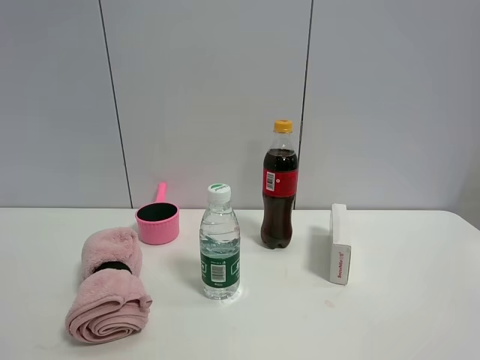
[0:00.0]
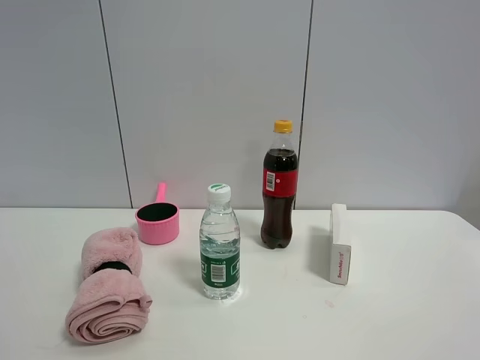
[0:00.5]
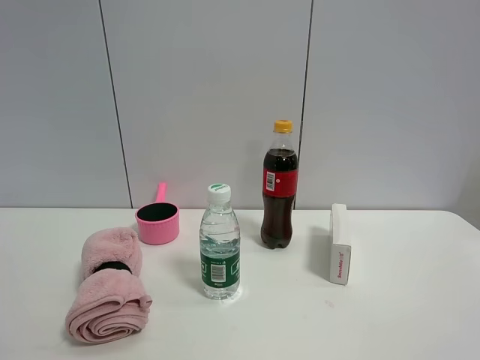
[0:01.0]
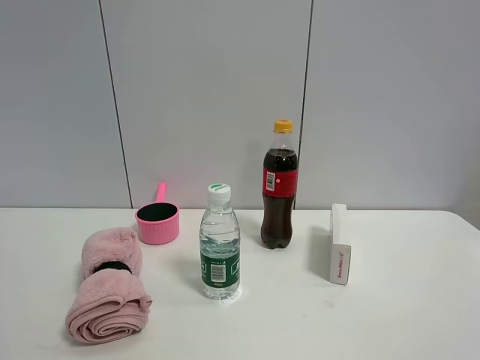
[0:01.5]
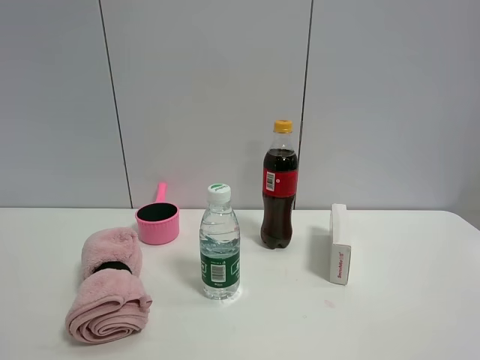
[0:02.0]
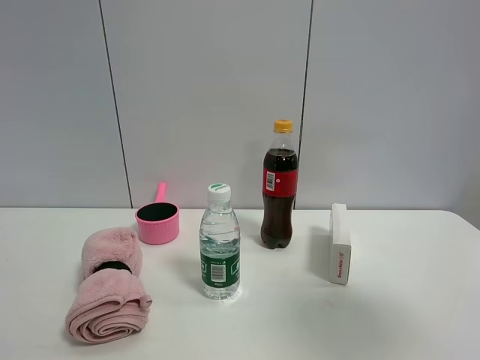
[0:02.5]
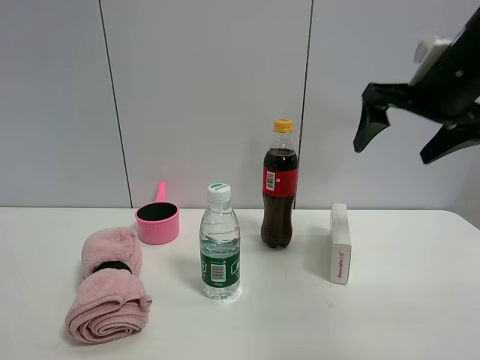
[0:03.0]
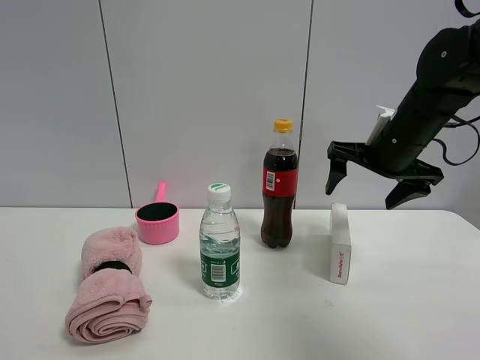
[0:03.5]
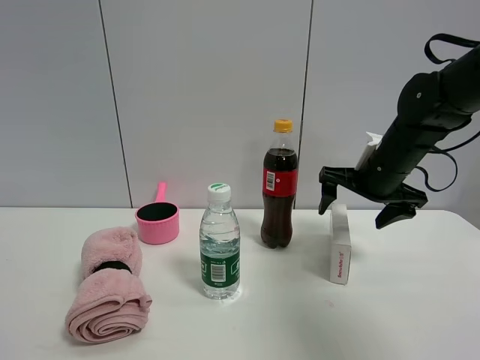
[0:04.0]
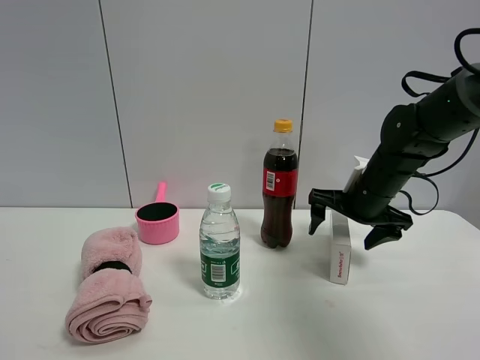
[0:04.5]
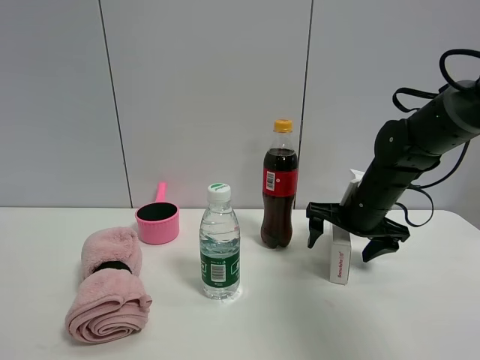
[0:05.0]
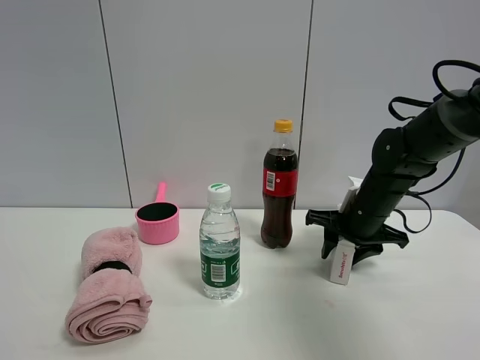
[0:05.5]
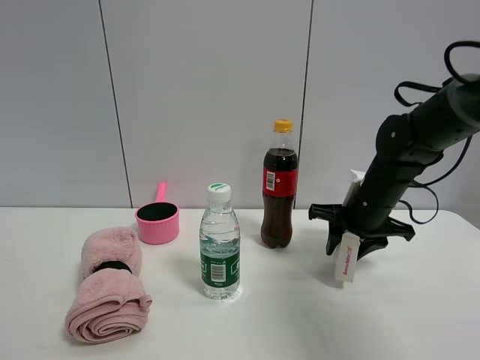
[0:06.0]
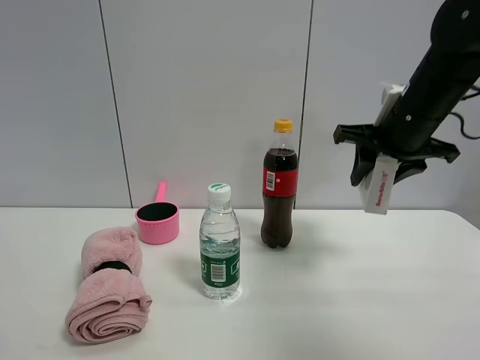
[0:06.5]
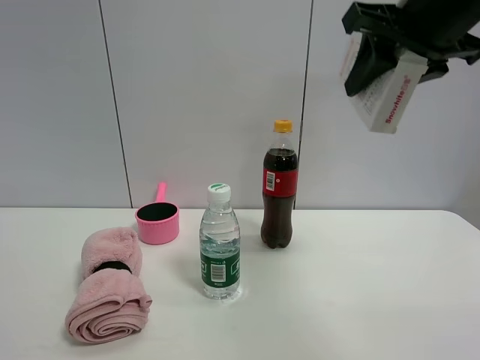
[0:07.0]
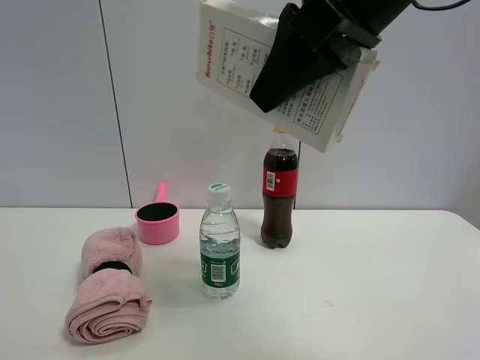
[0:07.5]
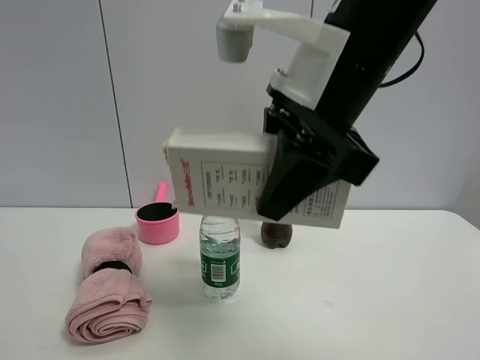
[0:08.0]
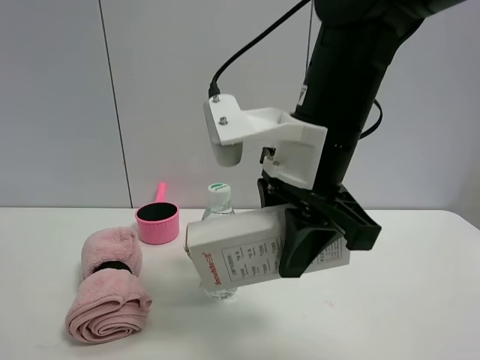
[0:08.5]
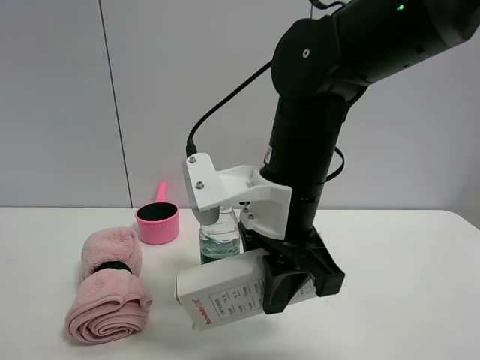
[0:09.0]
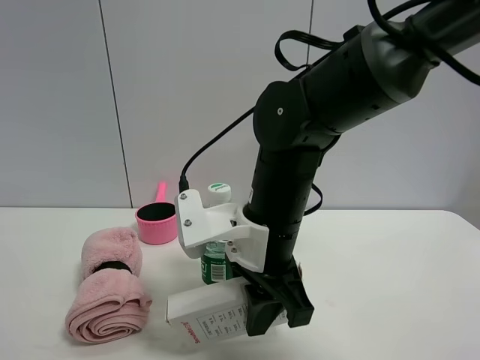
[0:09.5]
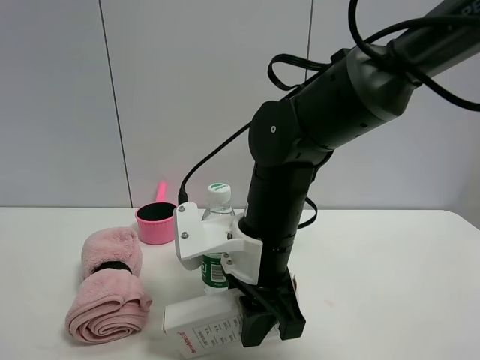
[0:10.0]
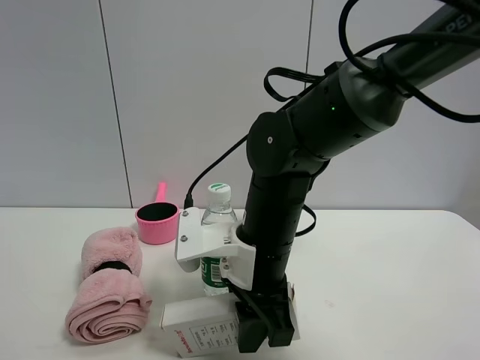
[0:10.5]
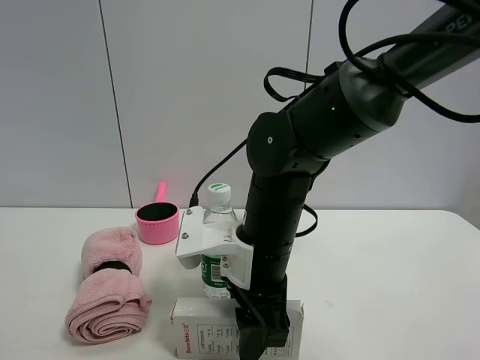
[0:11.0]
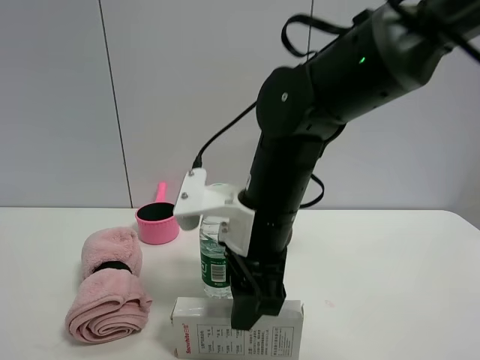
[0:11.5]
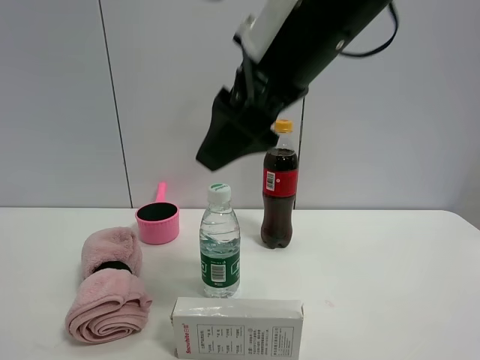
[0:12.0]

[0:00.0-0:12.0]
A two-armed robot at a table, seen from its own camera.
Task of the whole recording: the gripper move the object.
Step, 0:00.0 to 0:05.5: Grasp the USB box with the right gripper.
Step, 0:06.0 to 0:11.0: Place the USB box on the table with the right gripper.
0:00.0 to 0:02.0: Both grippers stay about where they are.
0:02.0 to 0:04.0: The right gripper moves forward, roughly 40 cm.
0:04.0 to 0:06.0: The right gripper closes its fingers.
0:06.0 to 0:08.0: The right gripper travels upward, backward and to the left by about 25 cm.
0:08.0 to 0:10.0: The right gripper goes roughly 15 cm downward.
0:10.0 to 0:12.0: The right gripper heads upward, covering about 20 cm, and opens.

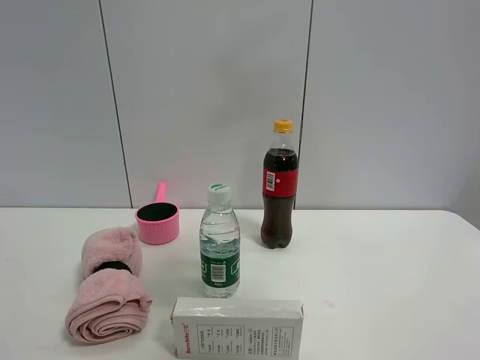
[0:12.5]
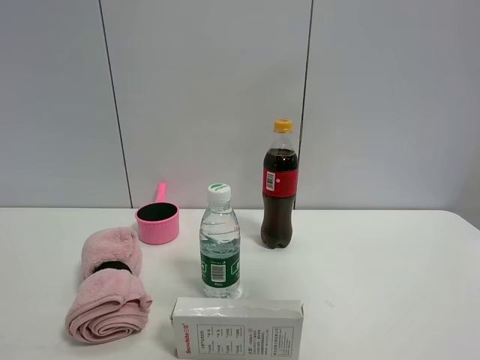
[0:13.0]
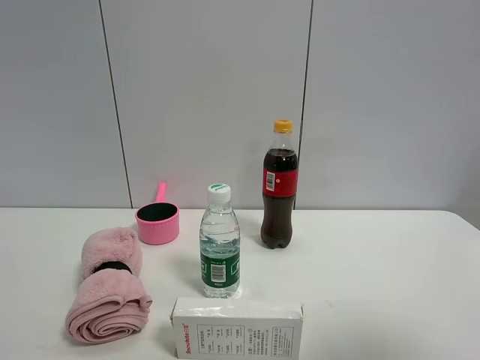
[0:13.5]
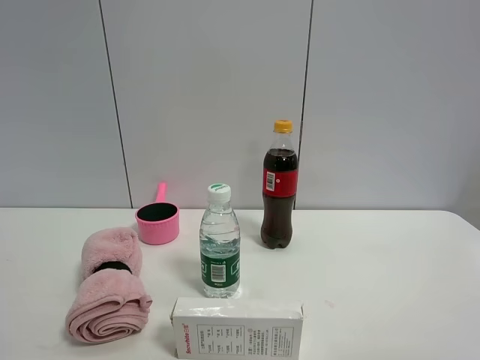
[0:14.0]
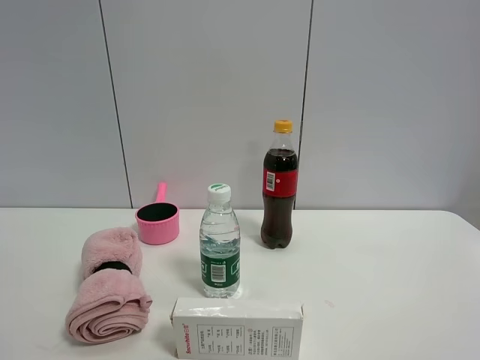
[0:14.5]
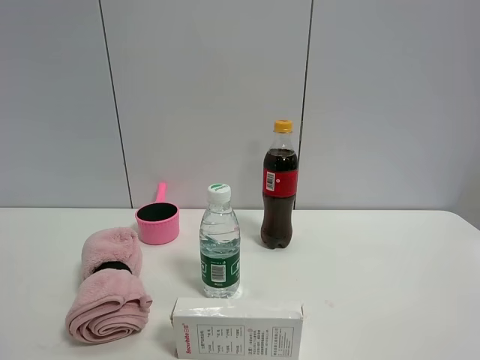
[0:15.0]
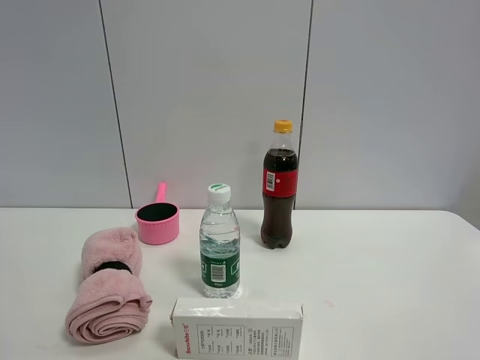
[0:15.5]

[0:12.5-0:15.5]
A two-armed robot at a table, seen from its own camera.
Task of the whole recording: the gripper move the object.
0:12.5 to 0:14.0: The right gripper shifts approximately 25 cm downward, backward and to the right.

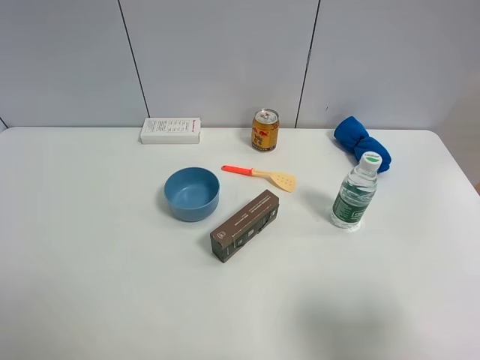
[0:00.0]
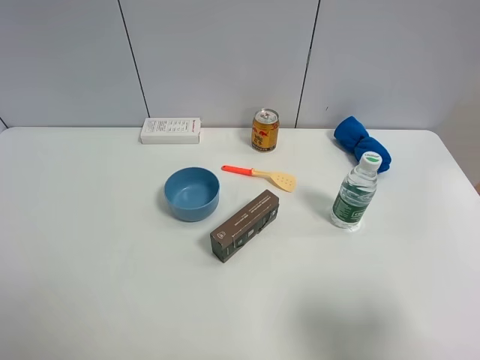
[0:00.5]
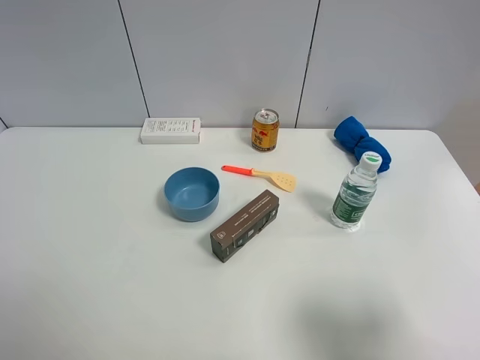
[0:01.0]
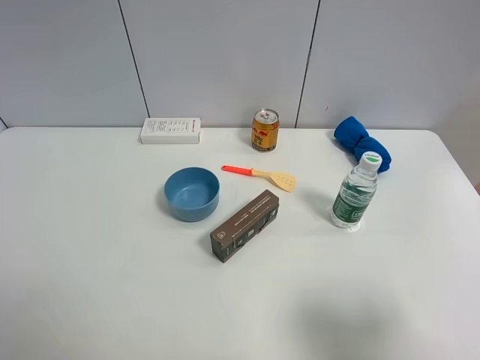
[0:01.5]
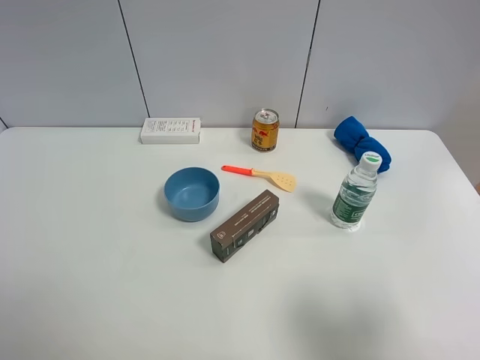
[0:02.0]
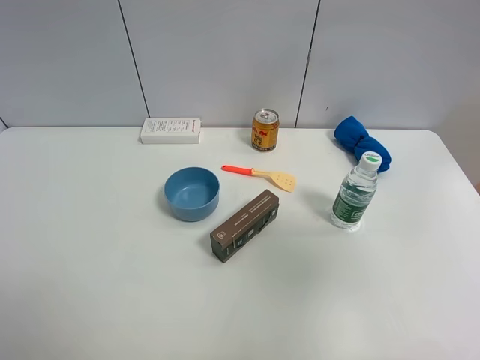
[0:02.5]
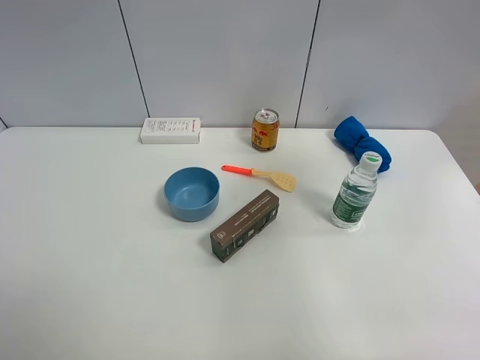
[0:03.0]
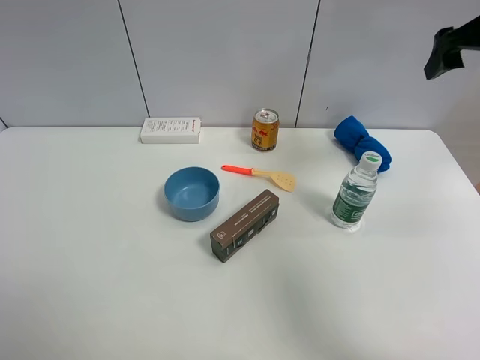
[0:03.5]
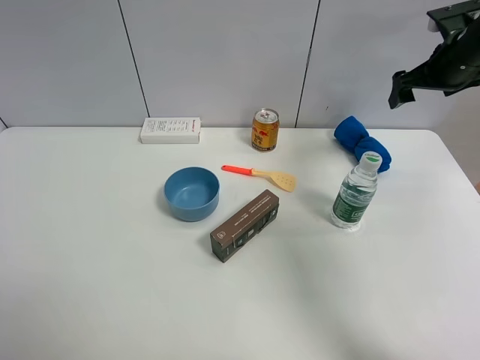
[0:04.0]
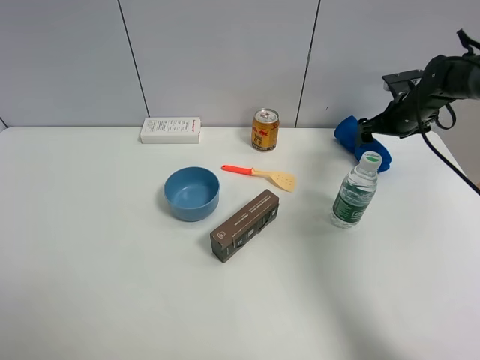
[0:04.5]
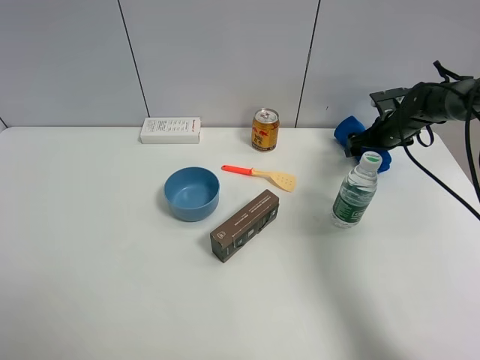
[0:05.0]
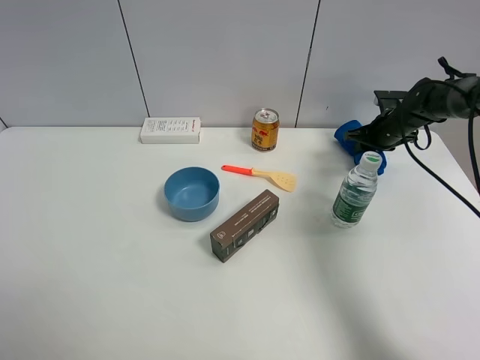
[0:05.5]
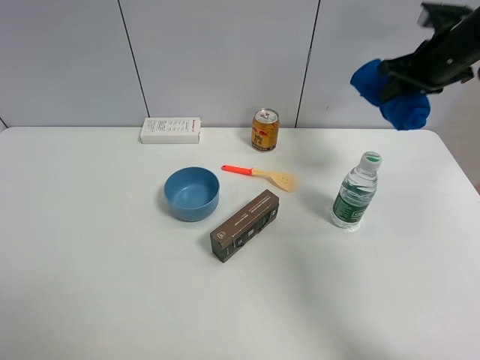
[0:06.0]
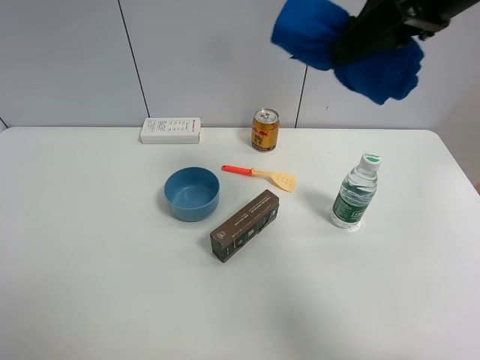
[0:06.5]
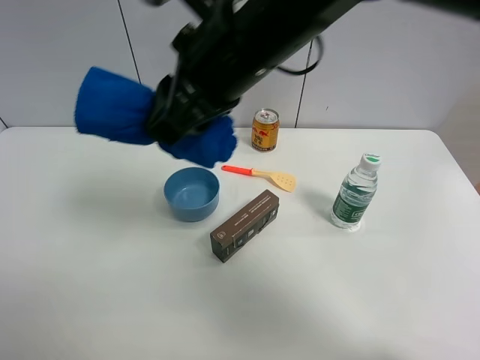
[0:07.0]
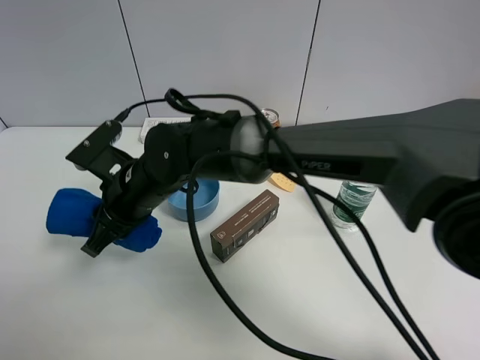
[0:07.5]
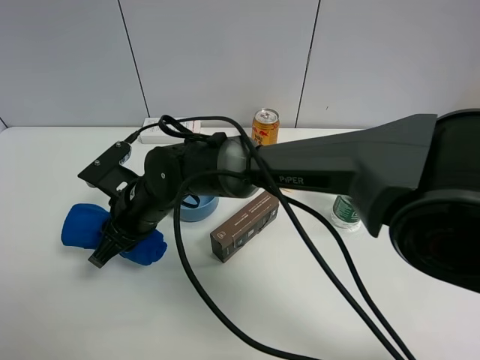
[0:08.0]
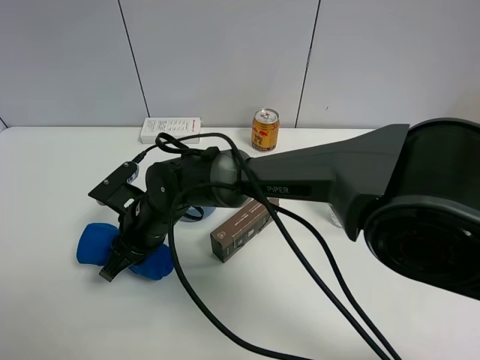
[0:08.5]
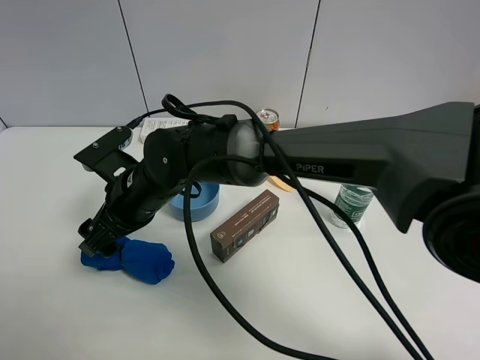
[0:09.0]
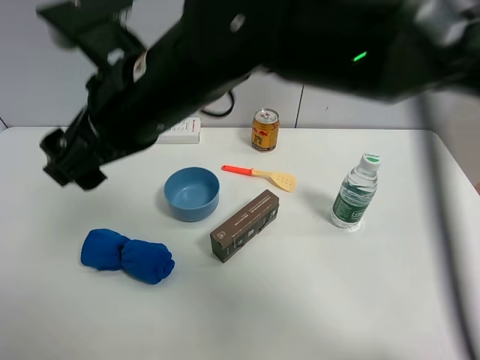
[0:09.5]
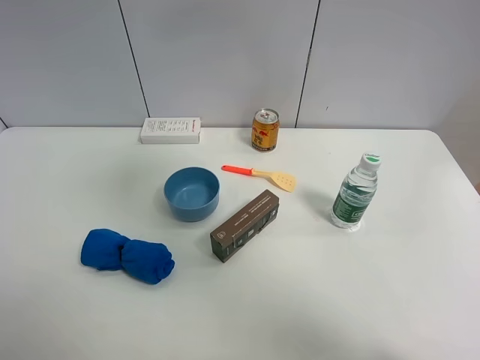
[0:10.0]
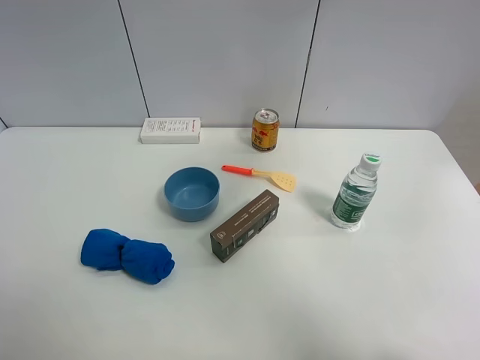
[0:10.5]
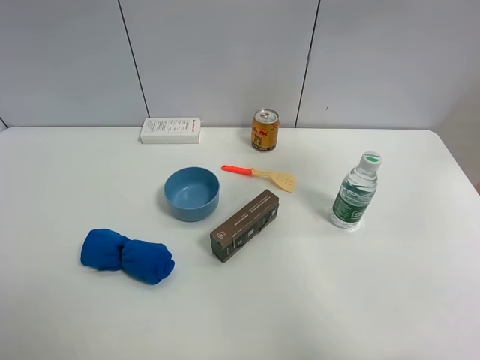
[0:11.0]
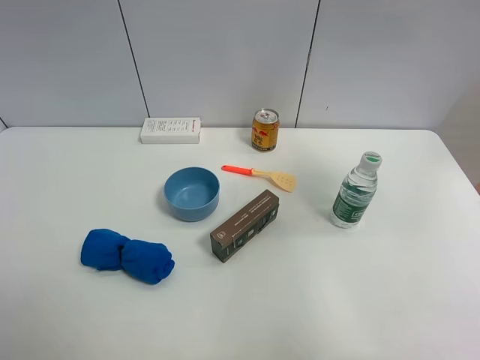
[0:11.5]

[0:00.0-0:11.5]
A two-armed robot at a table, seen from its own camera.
Task of the whole recording: the gripper move the object.
Step, 0:00.0 to 0:05.0: Grasp the blue towel with the right gripper.
Step, 0:05.5 to 0:08.5: Place the blue towel on the table with the right gripper.
0:02.0 to 0:04.0: The right gripper goes approximately 40 cm forward.
0:04.0 to 0:06.0: The right gripper travels downward and back again, approximately 15 cm each way, and closes up.
0:06.0 to 0:07.5: The right gripper travels to the left by some 40 cm.
0:07.5 to 0:09.5: The right gripper travels upward by about 15 cm, and opens its fingers.
0:09.5 to 0:11.5: The right gripper moves to the right, approximately 40 cm.
